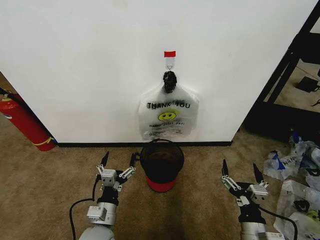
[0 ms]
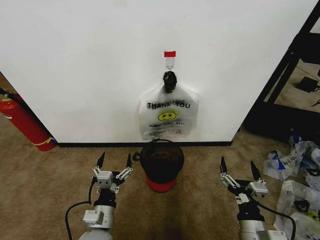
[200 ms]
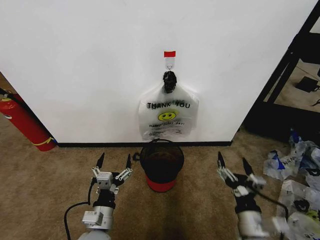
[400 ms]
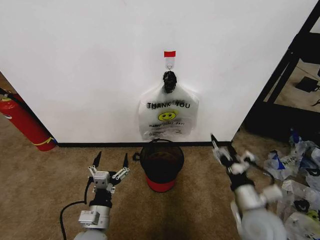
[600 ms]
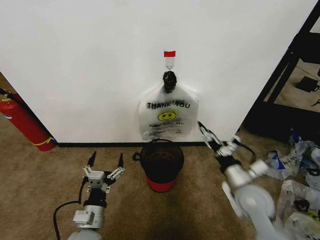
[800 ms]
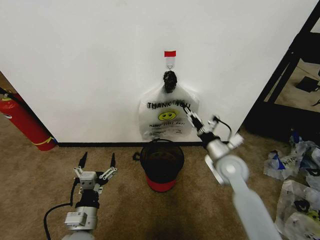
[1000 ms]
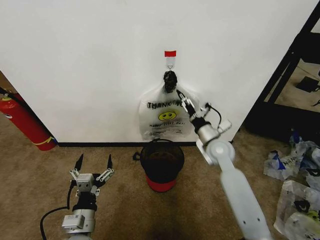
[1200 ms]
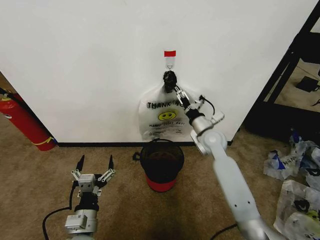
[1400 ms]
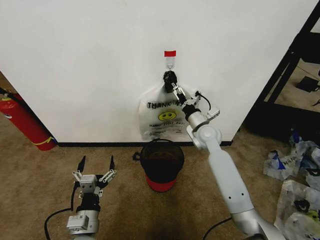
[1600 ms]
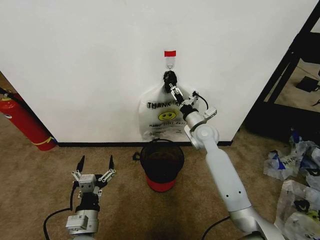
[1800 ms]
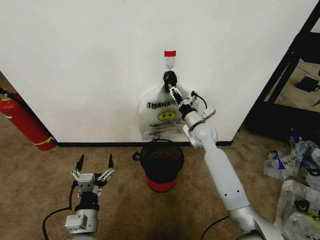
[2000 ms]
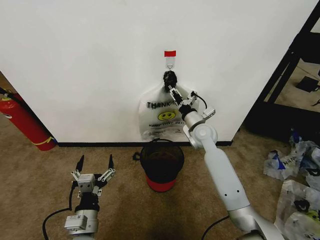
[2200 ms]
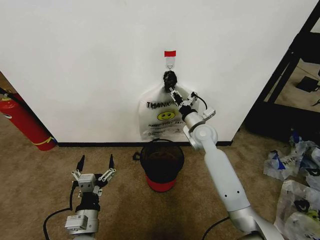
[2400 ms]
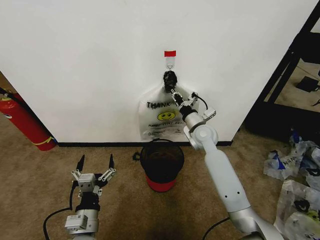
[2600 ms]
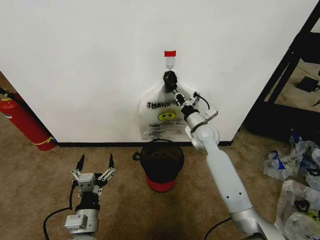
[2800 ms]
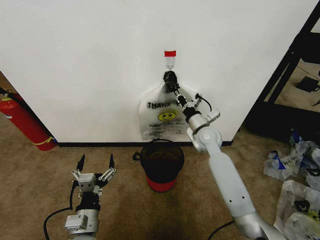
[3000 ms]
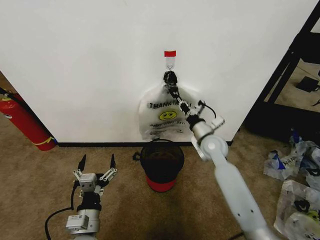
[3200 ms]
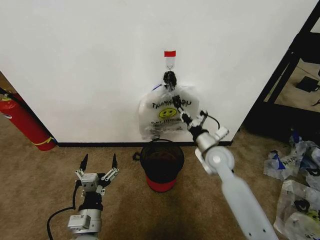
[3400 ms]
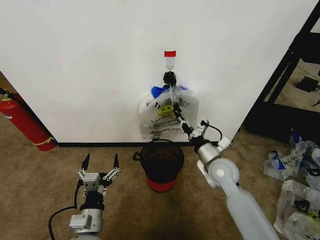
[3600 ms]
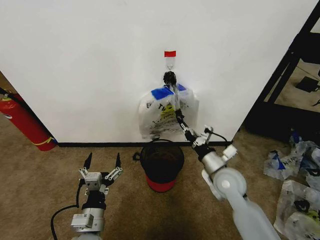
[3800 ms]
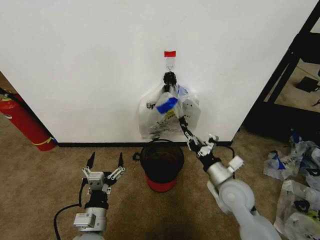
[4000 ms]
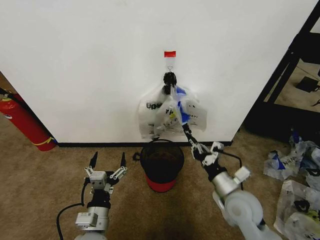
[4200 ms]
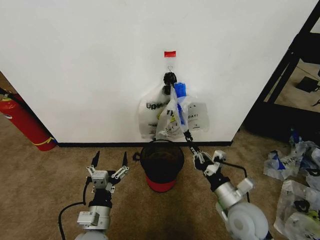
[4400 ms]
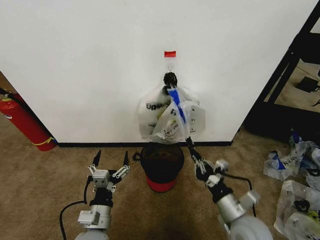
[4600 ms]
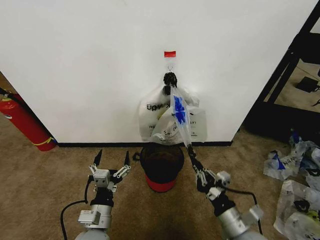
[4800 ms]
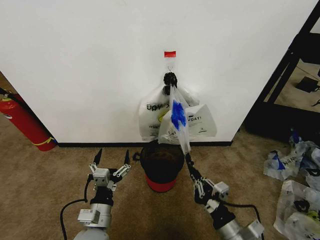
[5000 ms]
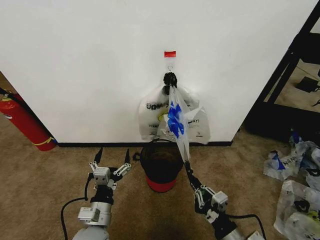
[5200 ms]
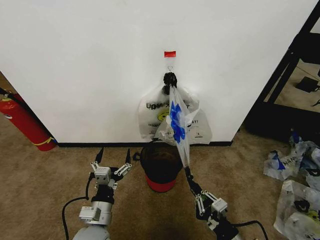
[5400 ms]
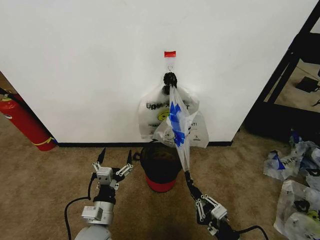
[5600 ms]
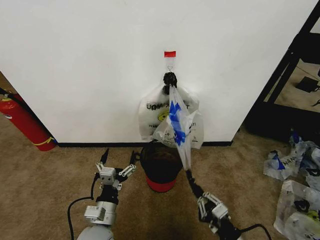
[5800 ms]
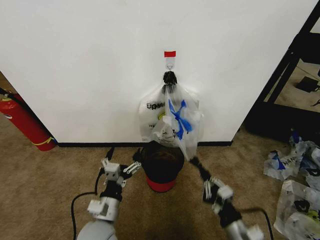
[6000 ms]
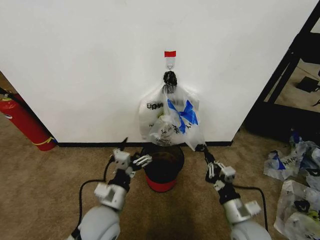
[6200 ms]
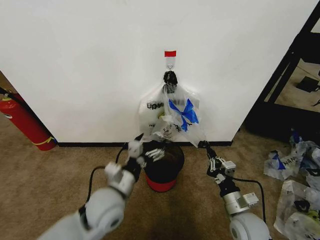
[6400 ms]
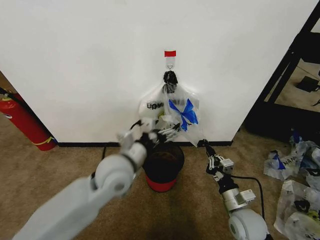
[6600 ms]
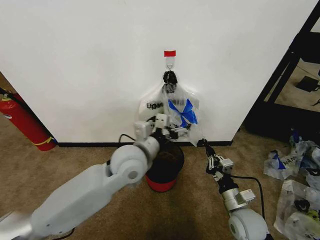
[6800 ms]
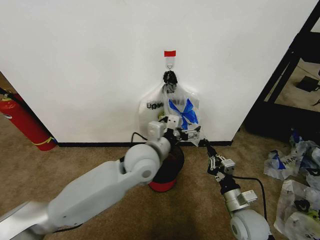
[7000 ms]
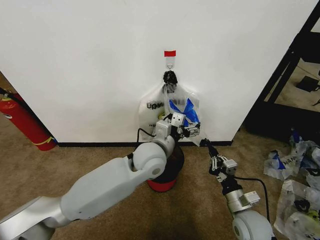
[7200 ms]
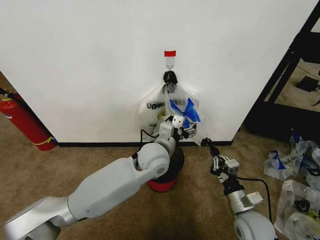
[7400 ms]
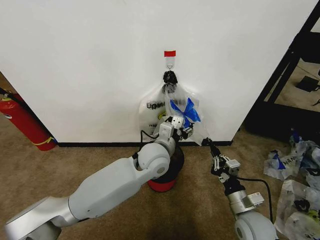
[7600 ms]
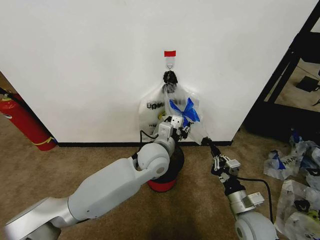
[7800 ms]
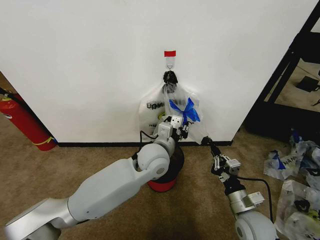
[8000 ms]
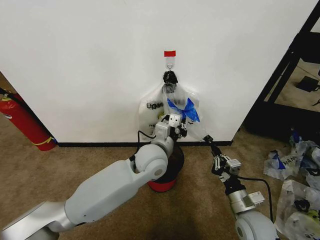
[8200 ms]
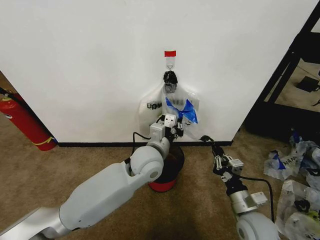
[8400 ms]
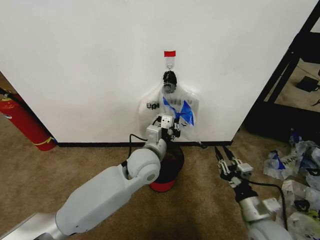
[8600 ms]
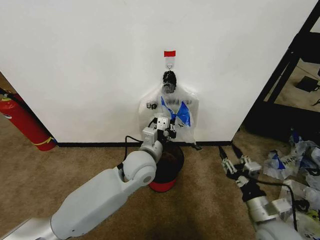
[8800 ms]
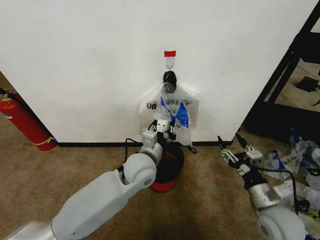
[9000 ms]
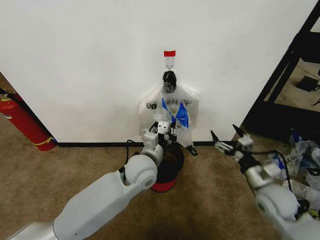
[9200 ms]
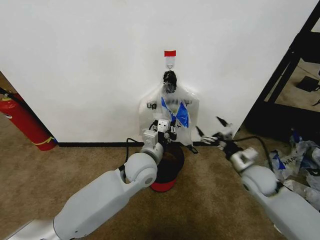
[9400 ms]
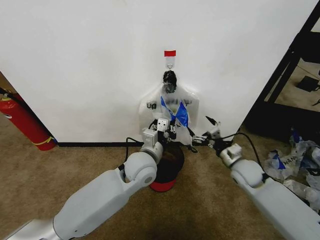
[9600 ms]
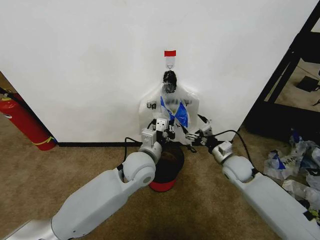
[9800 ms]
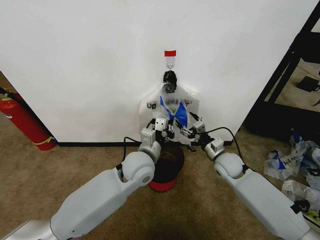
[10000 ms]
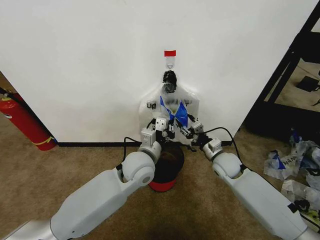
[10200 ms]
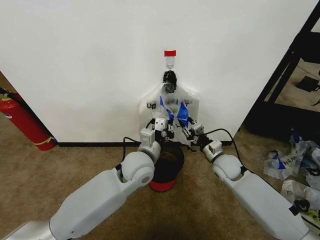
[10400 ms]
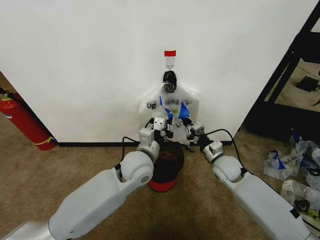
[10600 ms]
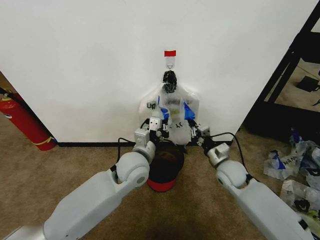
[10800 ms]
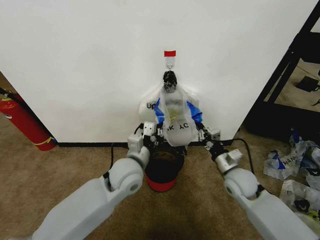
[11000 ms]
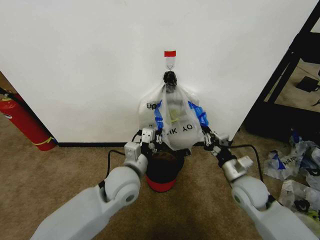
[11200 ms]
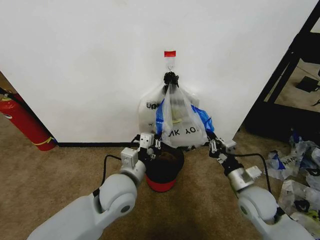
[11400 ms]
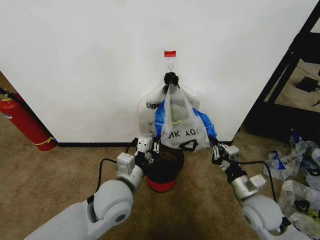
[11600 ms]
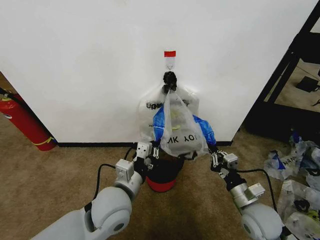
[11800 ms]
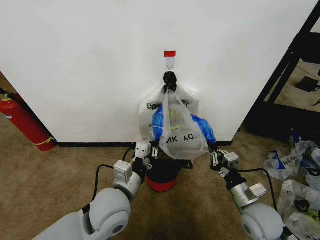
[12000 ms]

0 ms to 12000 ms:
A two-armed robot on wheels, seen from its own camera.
Task of the whole recording: Pick up the garbage bag from the wall and place it over the trash bin.
1600 ms to 3000 ms: The right gripper closes up.
3000 ms to 4400 ms: The right gripper heads backward, covering roughly 25 cm.
4400 ms to 6000 ms: The right gripper shifts about 10 cm backward and downward.
6000 ms to 7600 ms: The right gripper is displaced forward by about 10 cm; the left gripper travels forward, to the right and upward by approximately 25 cm, and closes up.
7600 ms to 9000 ms: The left gripper shifts by approximately 5 cm, and closes up; the right gripper heads upward, covering some 5 cm, and opens.
9000 ms to 10400 ms: The right gripper shifts approximately 20 cm forward, and closes its fingers.
10400 ms to 12000 ms: The right gripper heads backward, covering some 20 cm; the left gripper is displaced backward and to the left by roughly 15 cm.

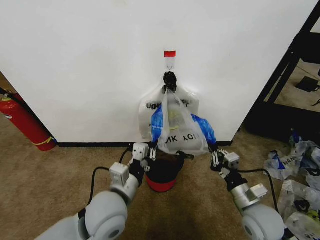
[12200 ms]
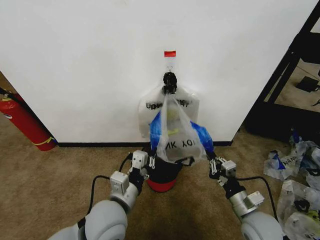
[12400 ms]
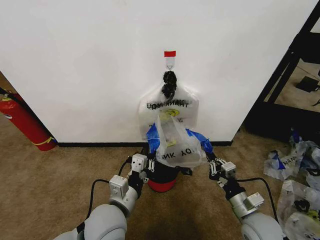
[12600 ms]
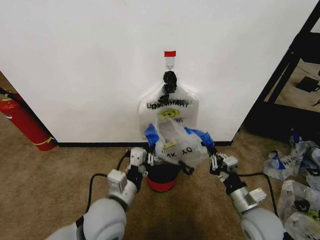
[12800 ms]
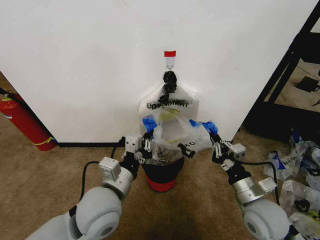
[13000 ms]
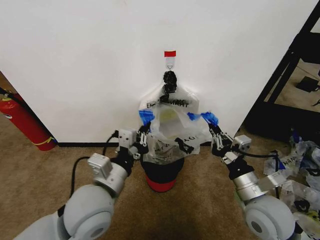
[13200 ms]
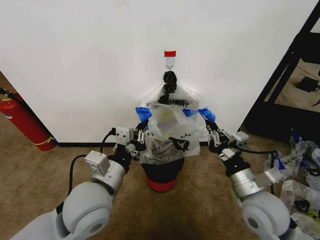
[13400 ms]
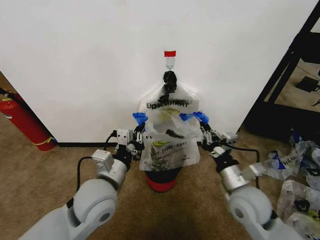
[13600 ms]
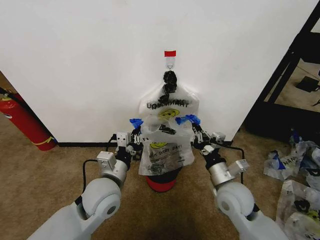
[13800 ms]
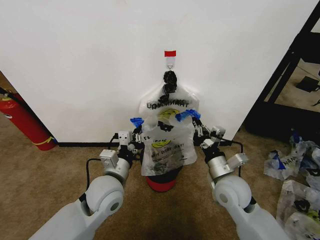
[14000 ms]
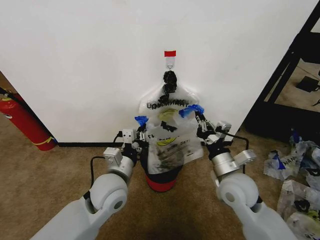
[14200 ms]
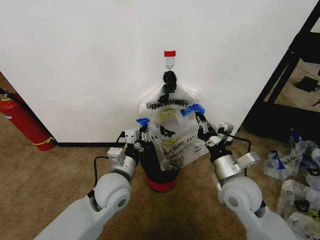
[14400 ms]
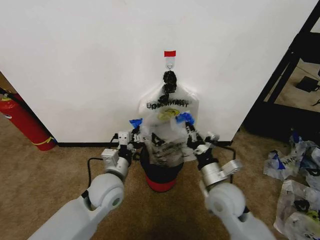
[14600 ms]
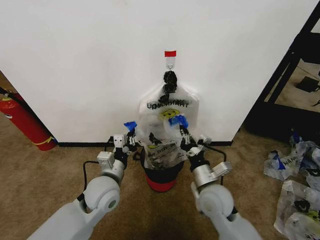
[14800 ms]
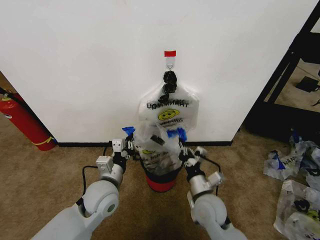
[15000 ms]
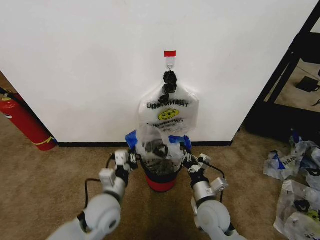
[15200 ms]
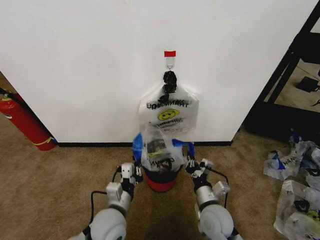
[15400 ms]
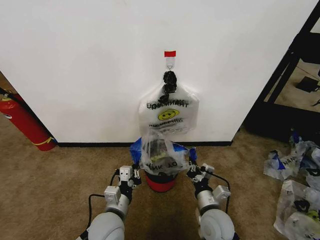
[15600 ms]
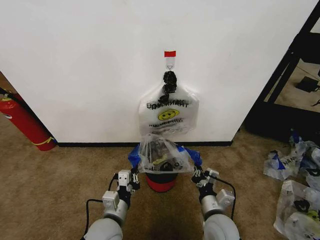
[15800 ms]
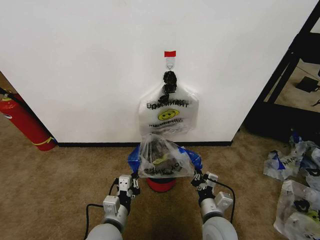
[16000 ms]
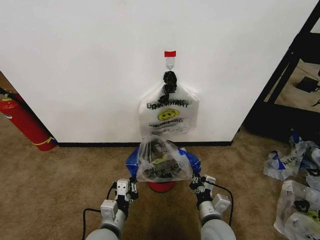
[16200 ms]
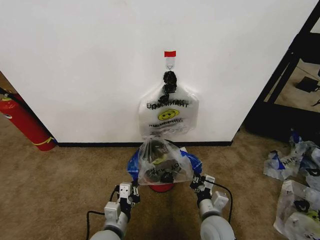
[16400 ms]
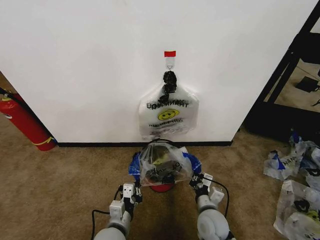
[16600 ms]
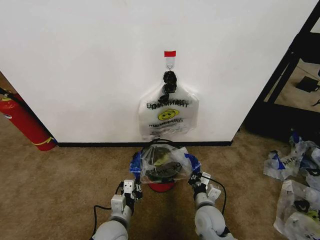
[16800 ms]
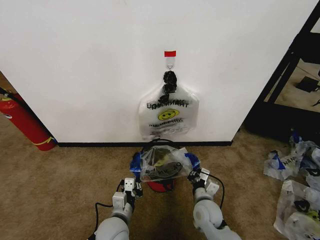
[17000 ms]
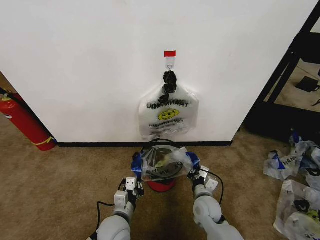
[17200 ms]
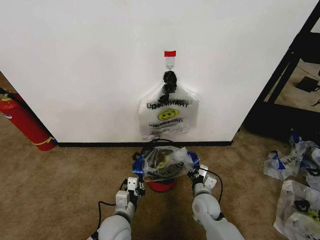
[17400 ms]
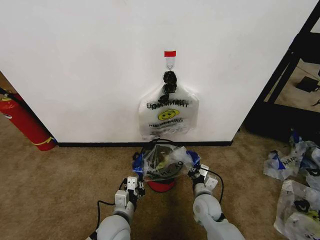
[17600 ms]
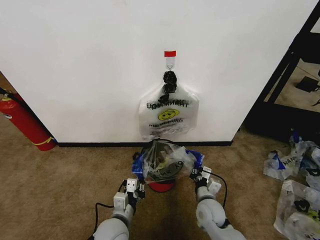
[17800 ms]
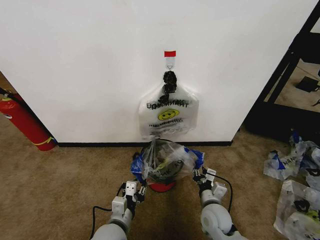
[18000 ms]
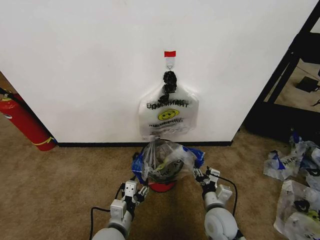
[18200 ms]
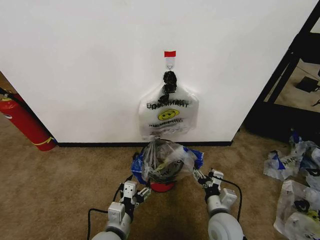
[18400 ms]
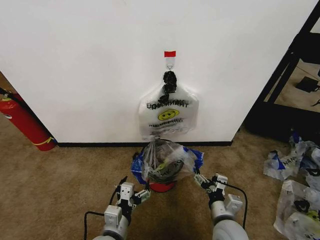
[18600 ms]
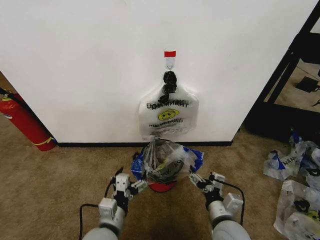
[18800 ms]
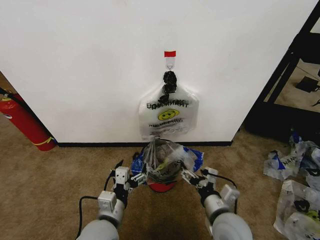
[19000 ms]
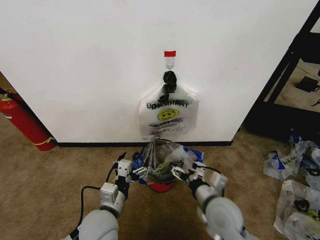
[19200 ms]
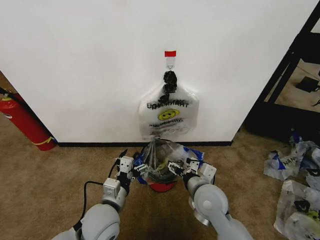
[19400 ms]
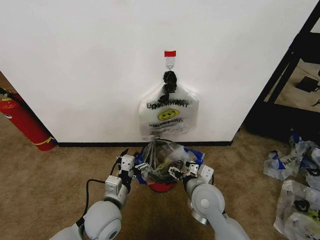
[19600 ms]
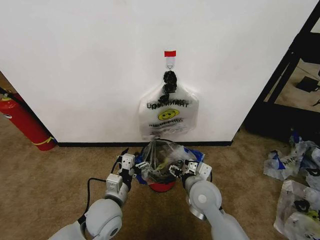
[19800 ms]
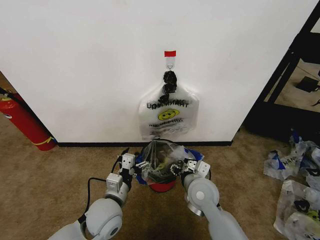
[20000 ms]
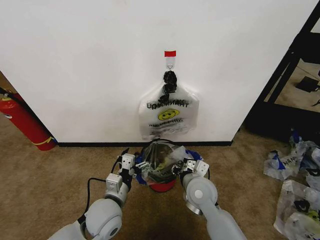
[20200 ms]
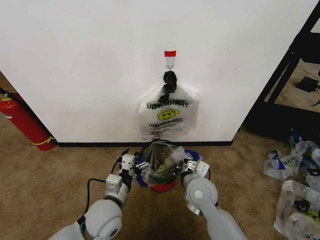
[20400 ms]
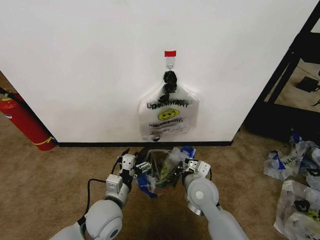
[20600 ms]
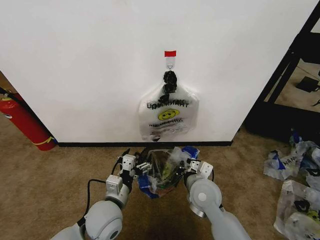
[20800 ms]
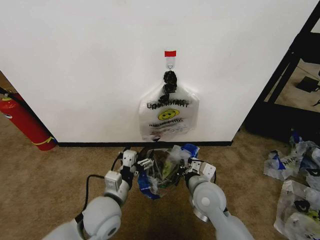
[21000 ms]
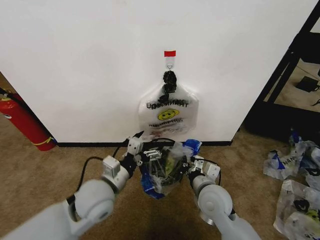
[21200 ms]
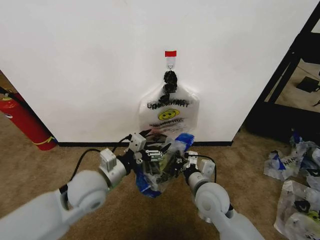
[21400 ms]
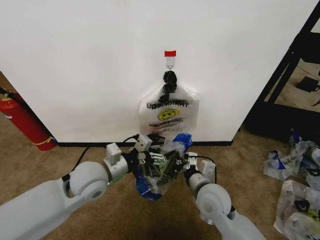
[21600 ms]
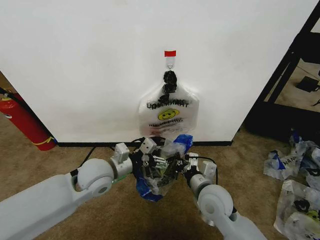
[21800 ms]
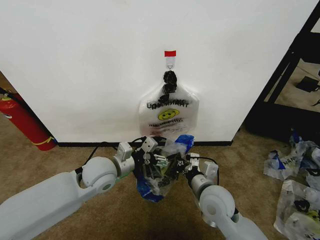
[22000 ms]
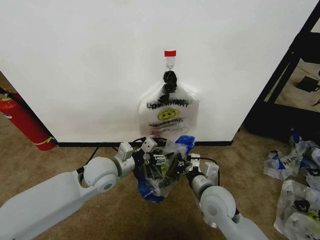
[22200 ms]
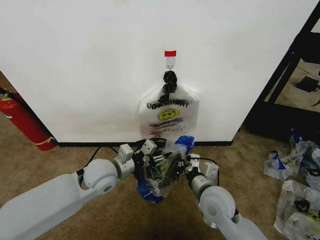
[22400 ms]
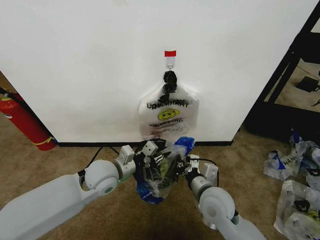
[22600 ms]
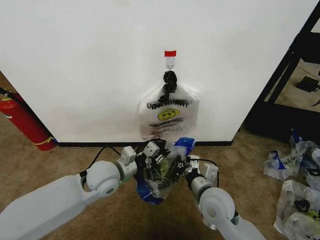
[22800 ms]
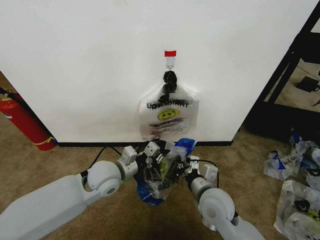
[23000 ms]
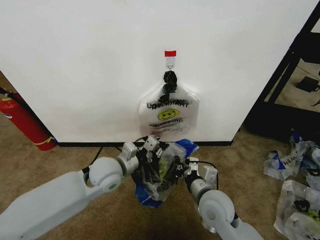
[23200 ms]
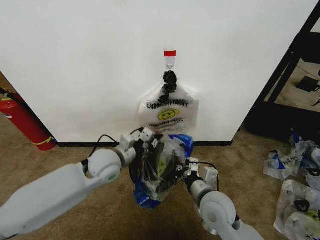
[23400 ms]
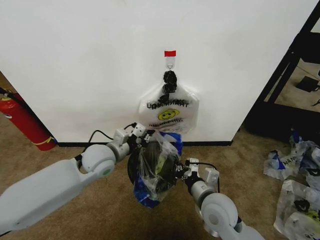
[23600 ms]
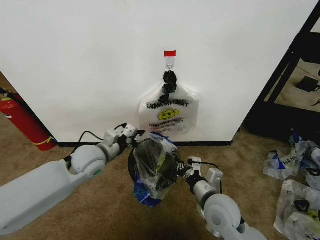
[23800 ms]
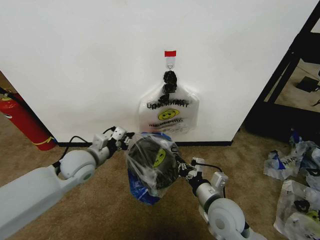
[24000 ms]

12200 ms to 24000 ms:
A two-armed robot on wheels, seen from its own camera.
Task of the whole recording: Pick up the garbage bag from the wall and place it over the trash bin.
12200 ms to 13600 ms: The right gripper travels upward by about 5 cm.
13600 ms to 15200 ms: The right gripper travels downward and to the left by roughly 15 cm. The left gripper goes about 10 cm downward.
15200 ms to 16600 ms: The right gripper shifts some 5 cm downward; the left gripper travels backward and downward by some 10 cm.
16600 ms to 18200 ms: The right gripper opens. Meanwhile the left gripper opens.
18200 ms to 19600 ms: The left gripper heads forward, covering roughly 5 cm, and opens; the right gripper is displaced upward and to the left by roughly 10 cm.
19600 ms to 21000 ms: The right gripper closes up.
21000 ms to 22600 ms: The left gripper moves forward, some 10 cm, and closes its fingers.
22600 ms to 24000 ms: The left gripper heads to the left, covering about 10 cm.
